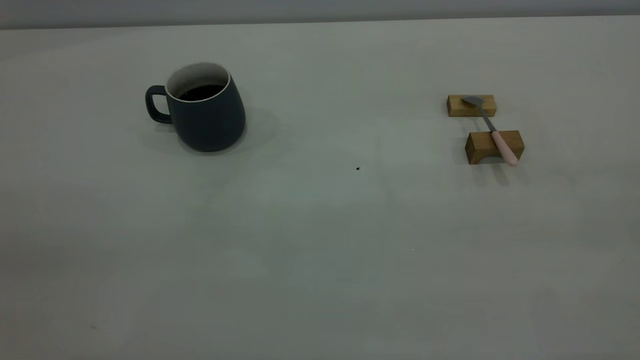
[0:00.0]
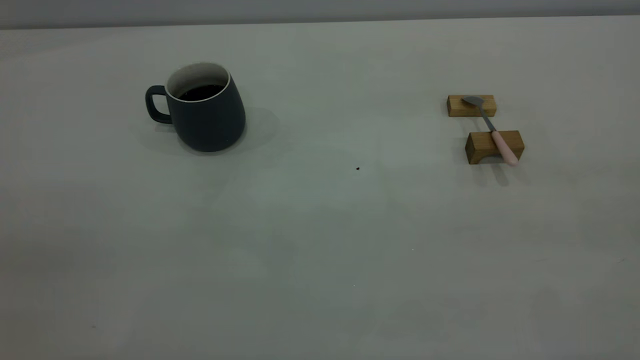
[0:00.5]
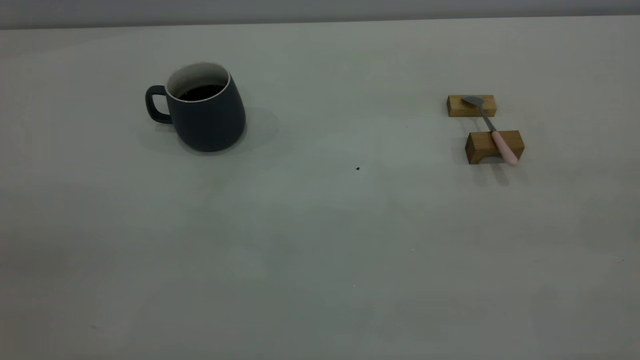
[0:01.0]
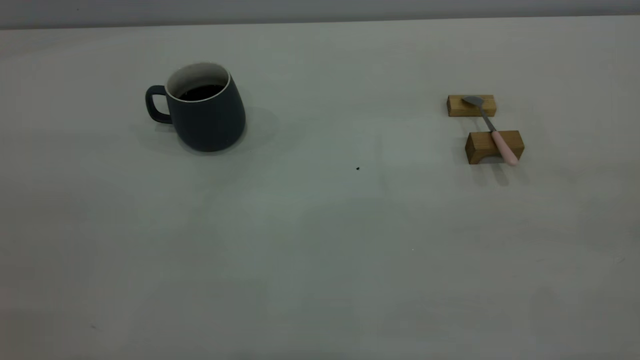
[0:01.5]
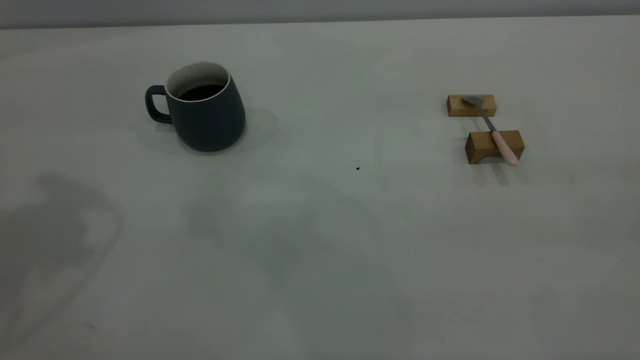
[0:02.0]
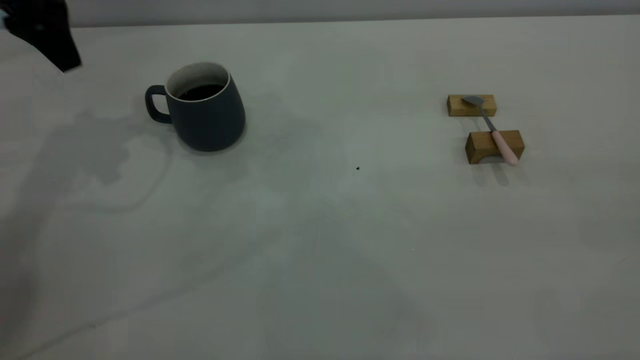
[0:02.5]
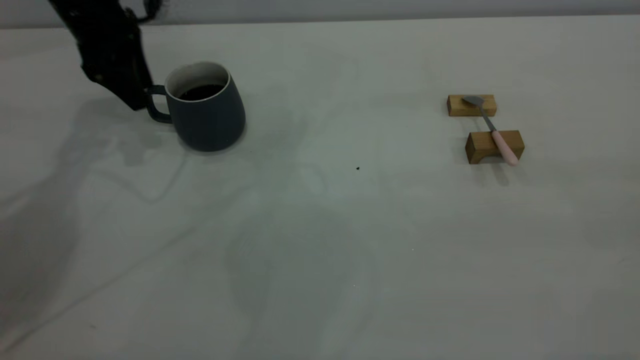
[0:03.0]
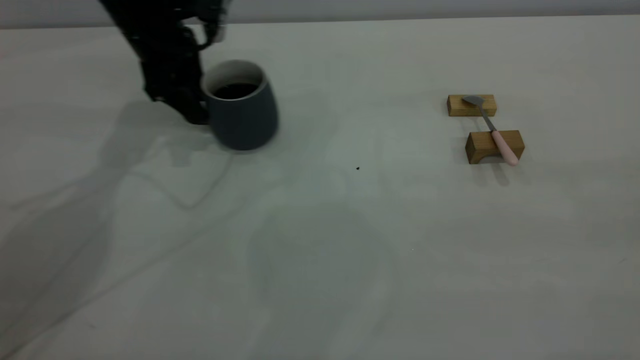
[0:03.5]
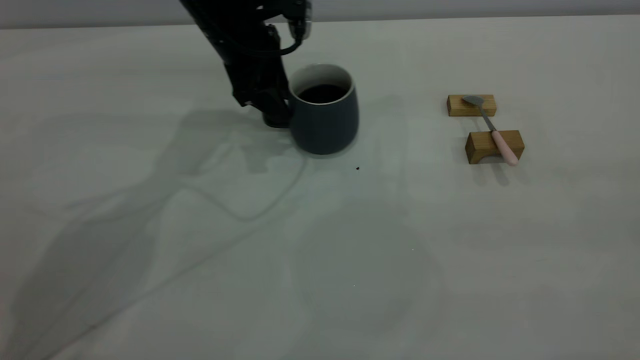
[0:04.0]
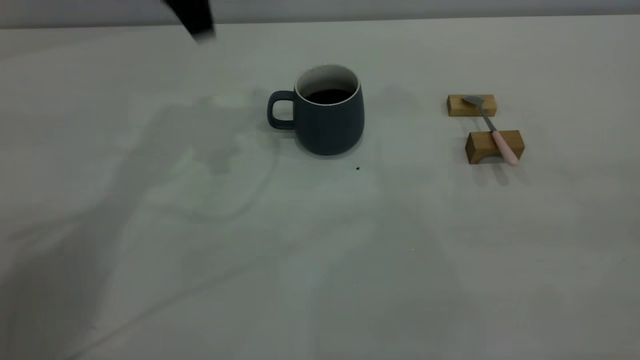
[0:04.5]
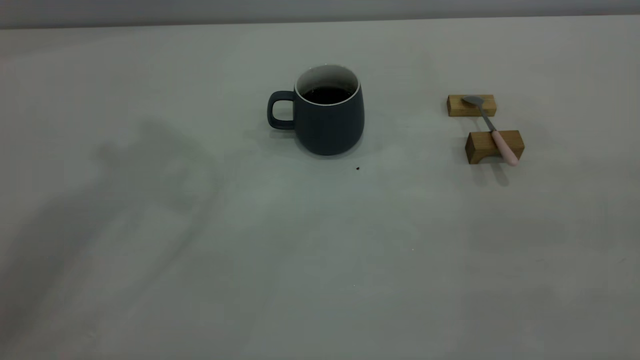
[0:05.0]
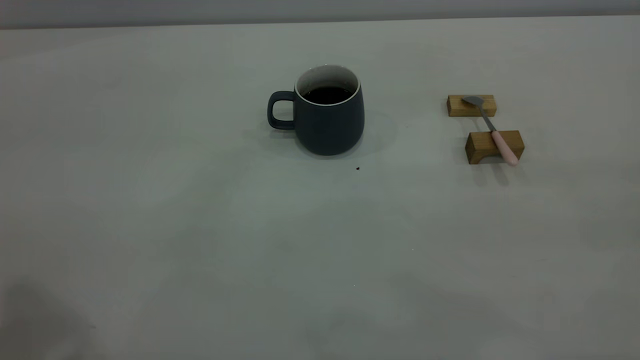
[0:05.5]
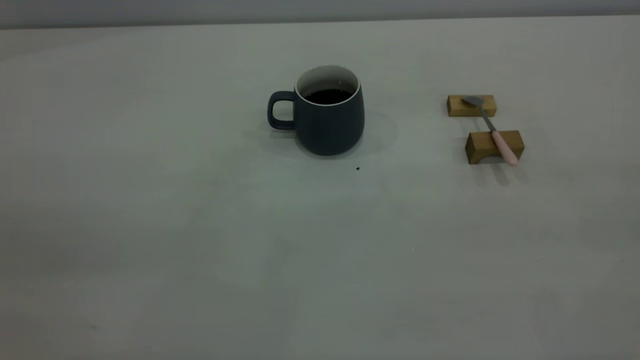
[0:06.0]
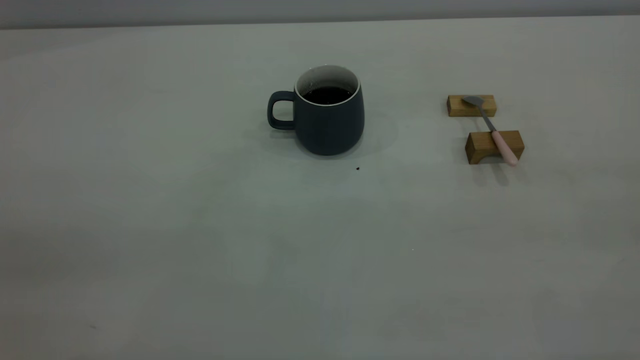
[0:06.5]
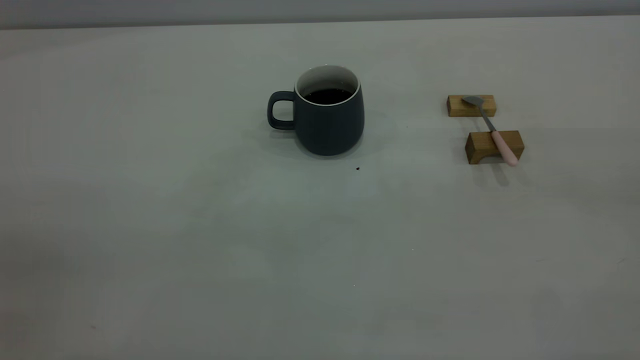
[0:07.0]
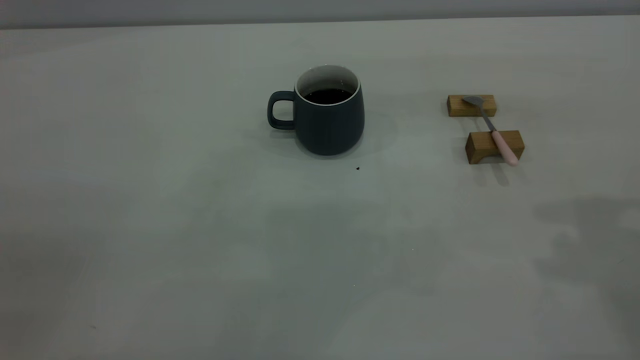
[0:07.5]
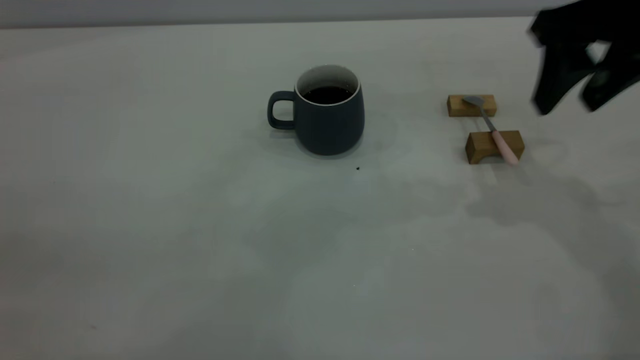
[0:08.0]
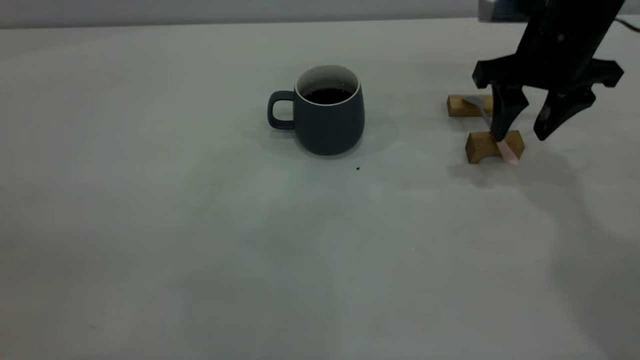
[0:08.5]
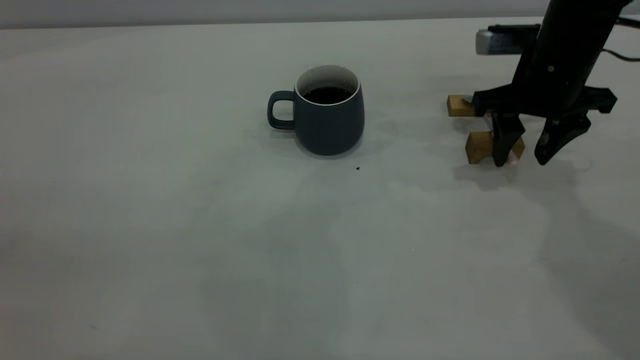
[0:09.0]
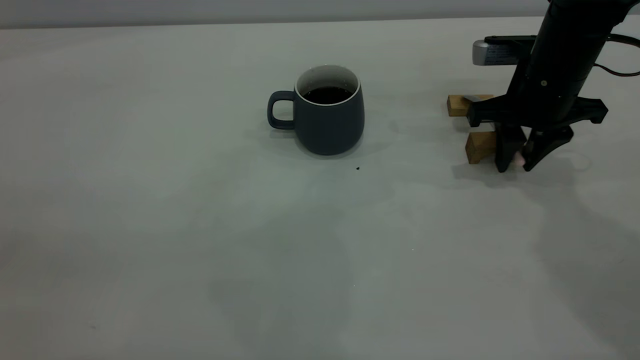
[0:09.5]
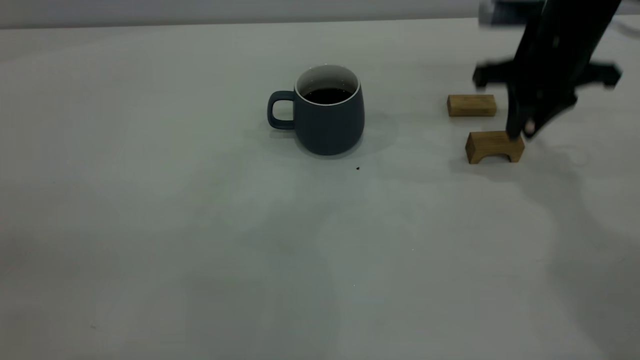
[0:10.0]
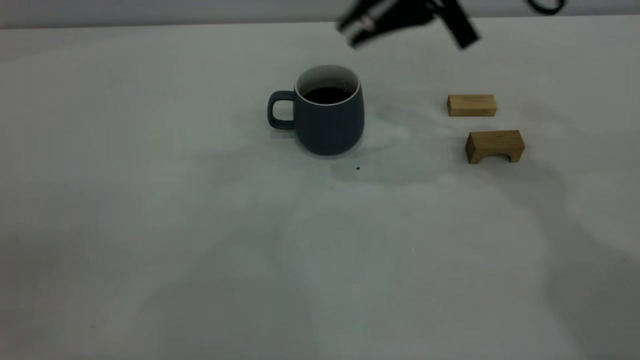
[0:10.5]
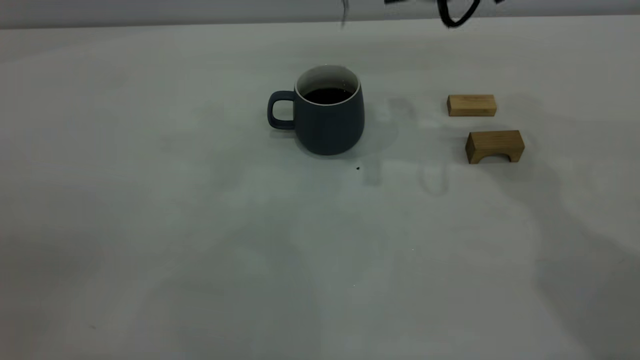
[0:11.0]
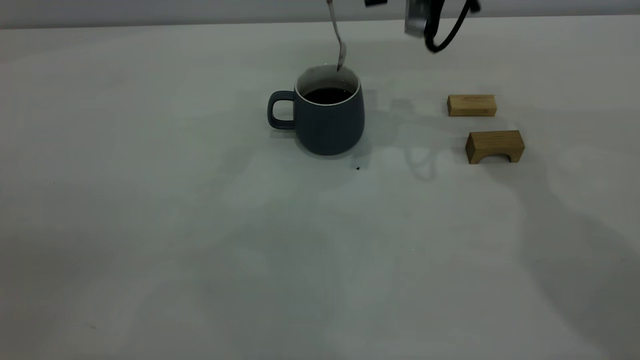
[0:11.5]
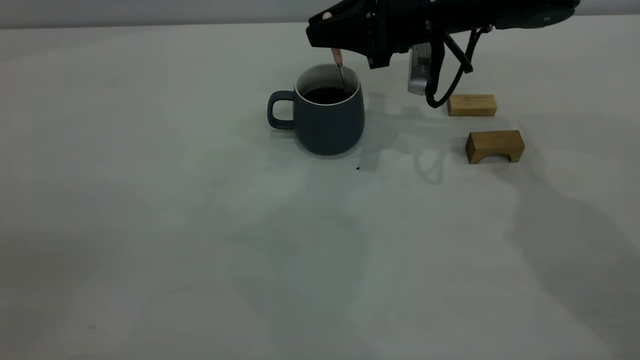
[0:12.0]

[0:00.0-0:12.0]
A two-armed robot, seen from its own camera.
Step, 0.0 to 4.0 s: Move the cup with coffee to the center of view.
Step, 4.5 to 10.0 s: Pick up the spoon.
2.0 to 4.0 s: The left gripper shifts some 30 cm downward, forward and to the right.
4.0 to 6.0 s: The left gripper is displaced backward and upward by approximately 50 cm.
6.0 to 8.0 s: The right gripper heads forward and downward, covering about 35 cm, and opens.
8.0 to 10.0 s: The right gripper is displaced downward and forward by roughly 10 cm, and closes up.
10.0 to 12.0 s: The right gripper travels to the left and forward by approximately 10 cm.

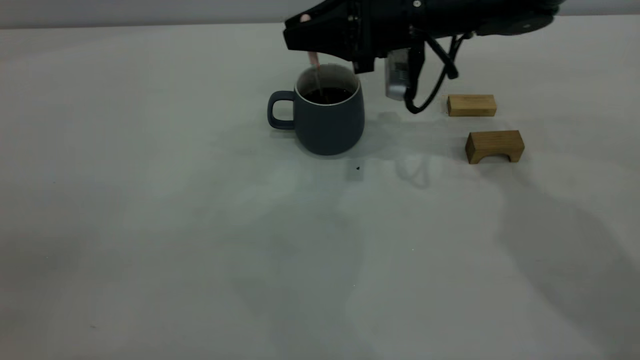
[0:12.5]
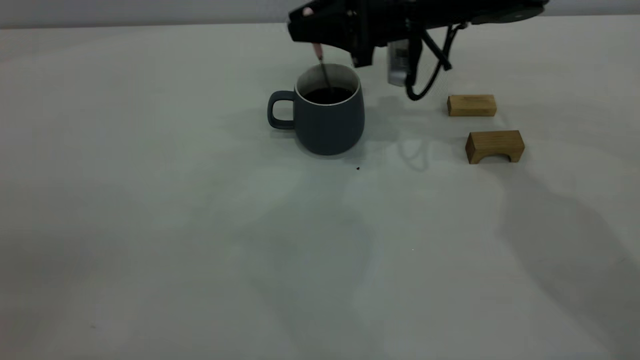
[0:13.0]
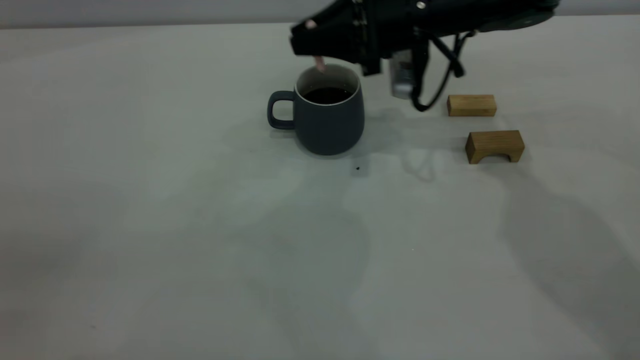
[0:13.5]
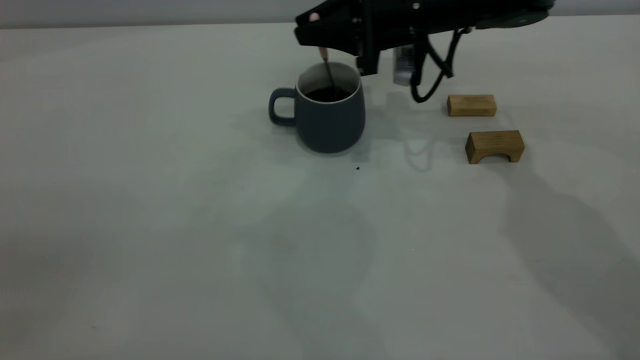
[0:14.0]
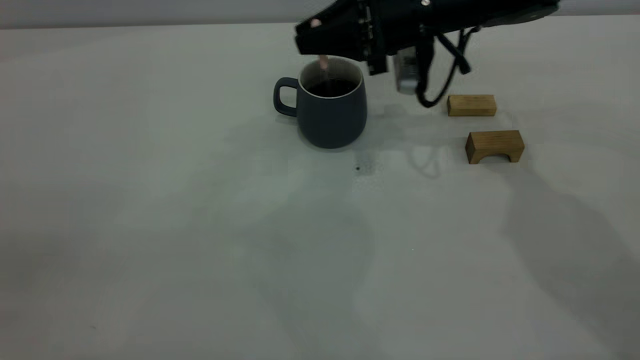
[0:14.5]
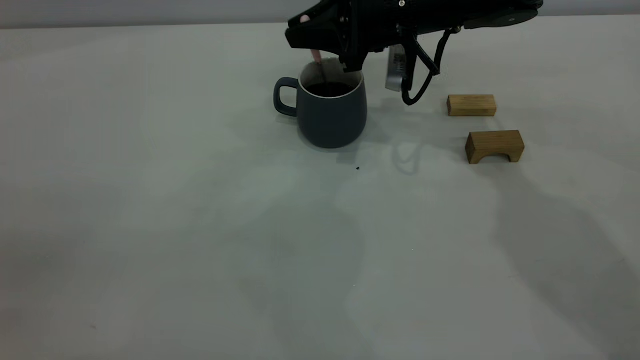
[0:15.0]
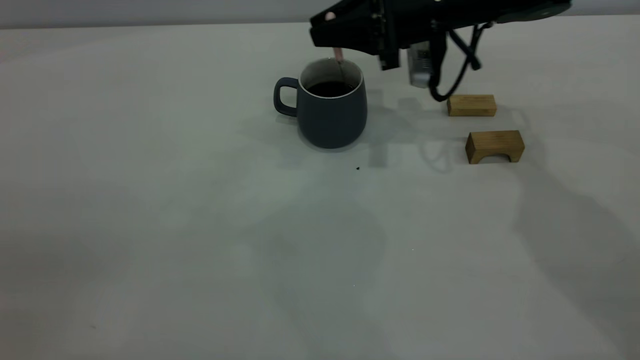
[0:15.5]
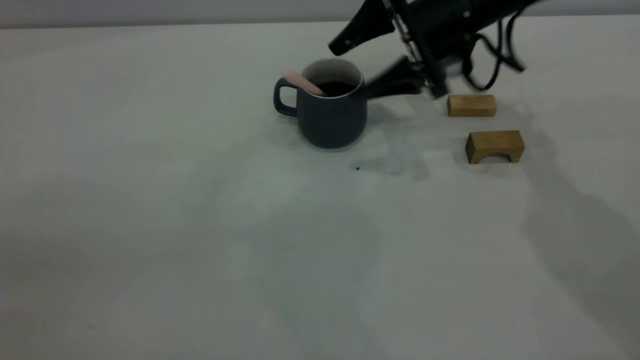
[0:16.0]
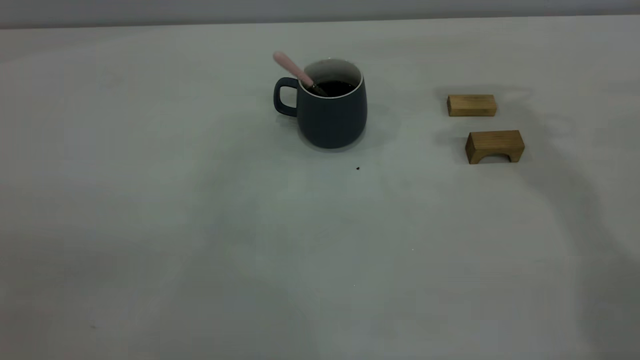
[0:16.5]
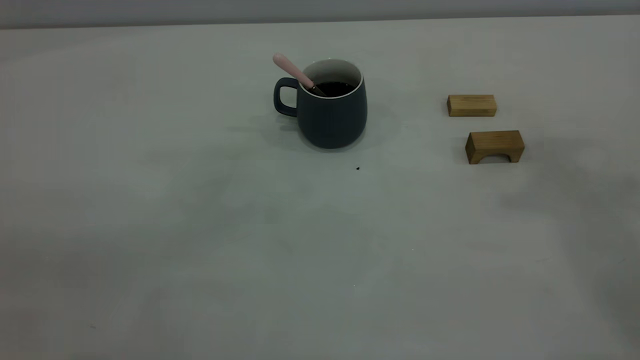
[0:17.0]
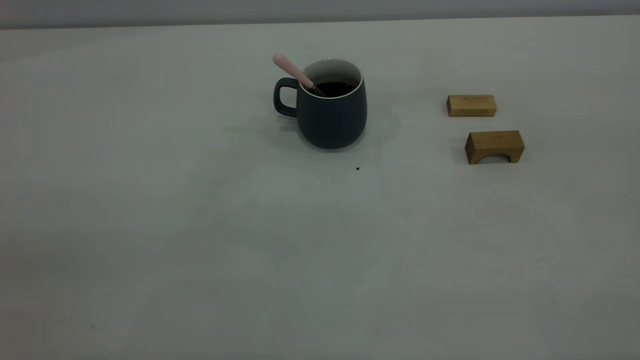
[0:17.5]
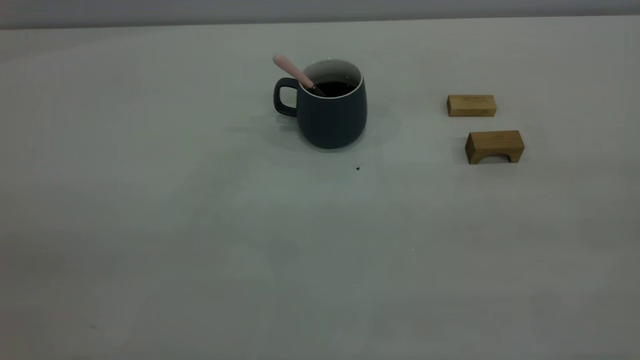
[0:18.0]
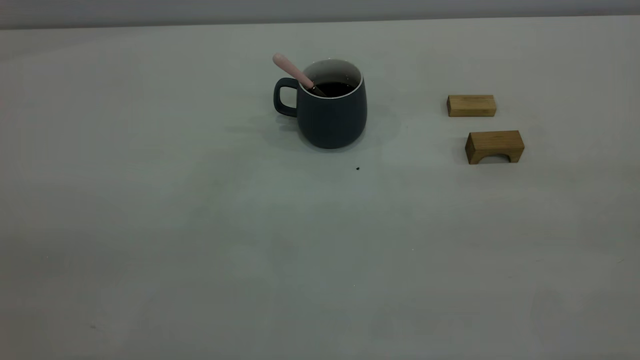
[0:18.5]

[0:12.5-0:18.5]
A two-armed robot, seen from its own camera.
Step, 12.5 to 16.0 s: Stir the coffee in the cup.
12.5 to 14.5 s: The grippers move only a little.
14.5 to 16.5 s: The right gripper travels upward and to the right by approximately 25 cm, and opens.

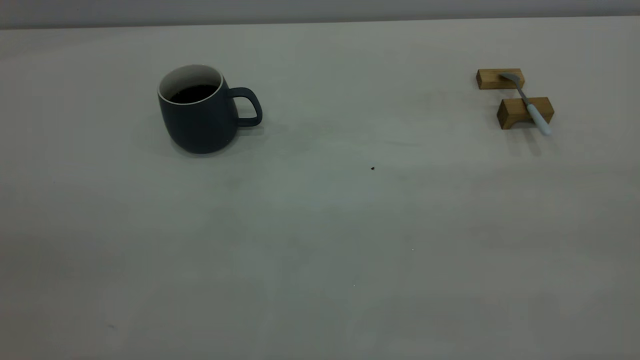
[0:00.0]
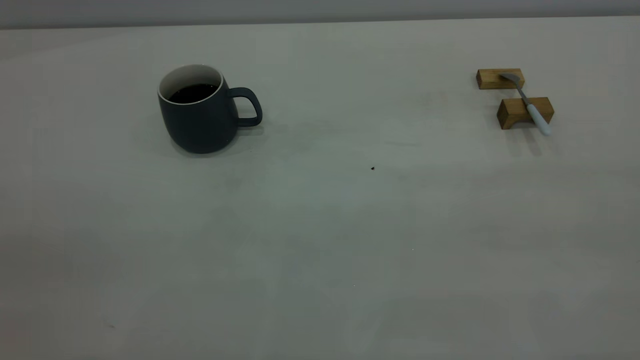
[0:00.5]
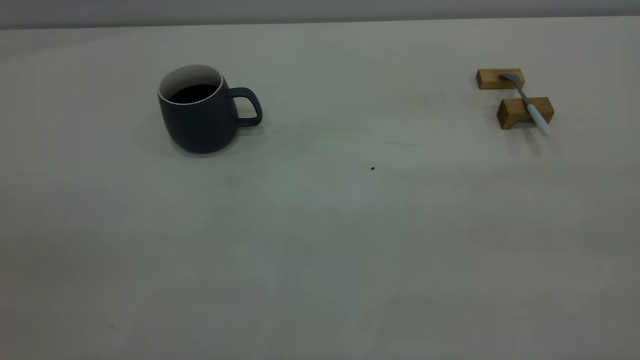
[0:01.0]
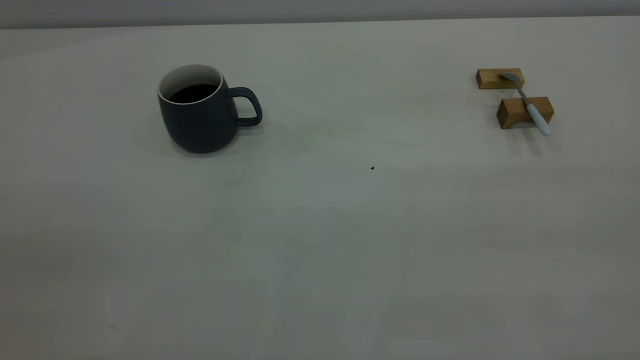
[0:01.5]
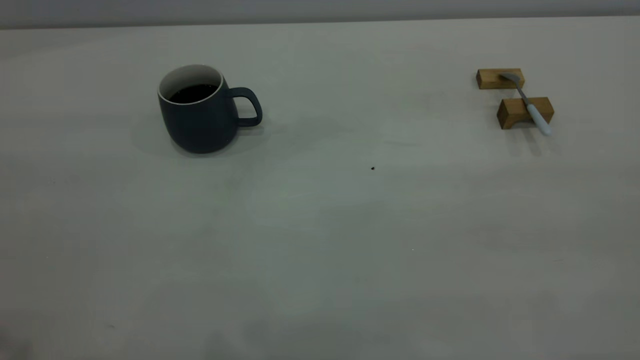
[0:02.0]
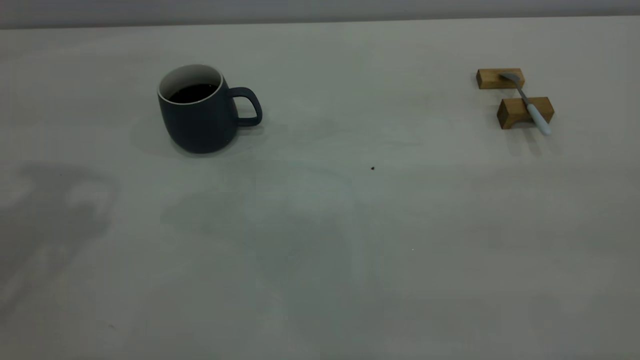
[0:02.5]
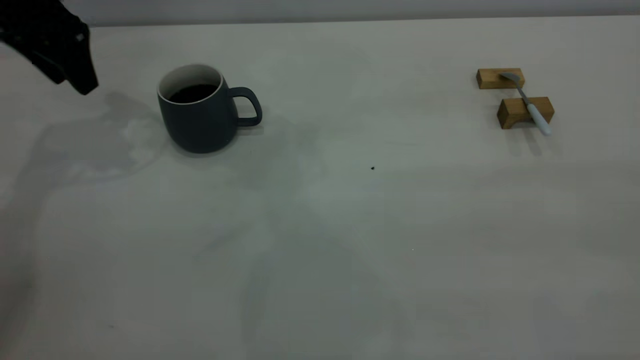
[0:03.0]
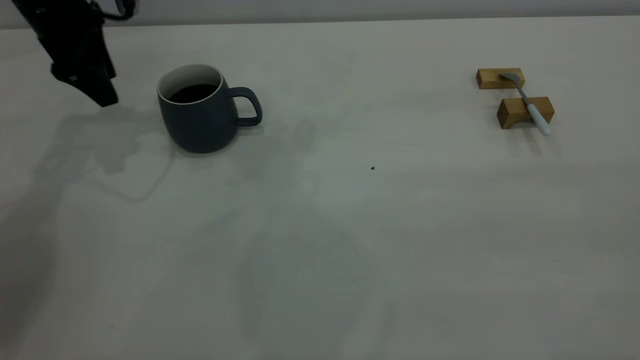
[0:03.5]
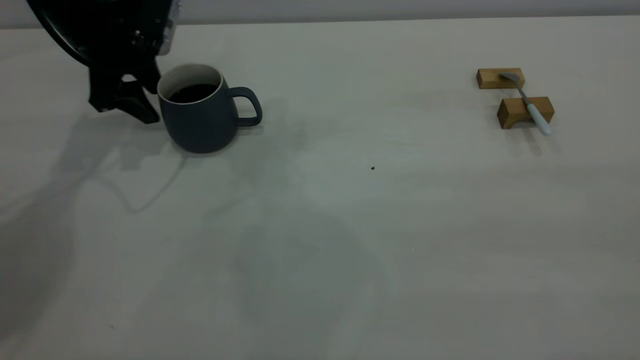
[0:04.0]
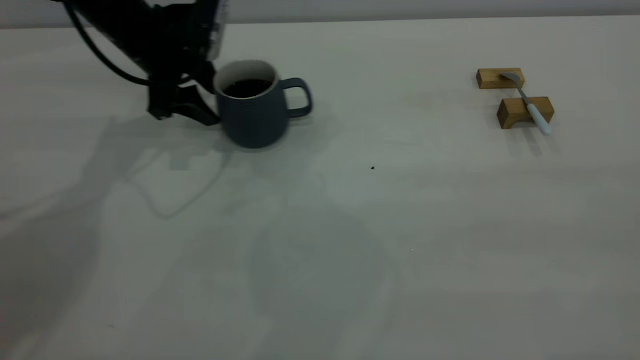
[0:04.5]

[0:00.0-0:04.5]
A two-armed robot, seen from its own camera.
2.0 to 4.5 s: The left gripper travels forward and downward by roughly 40 cm.
